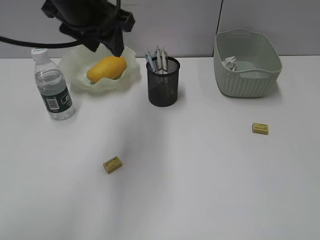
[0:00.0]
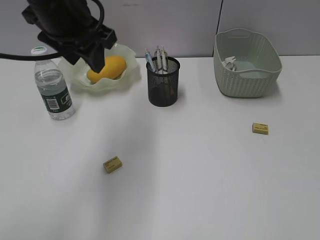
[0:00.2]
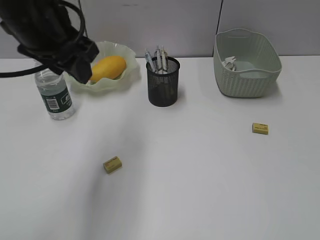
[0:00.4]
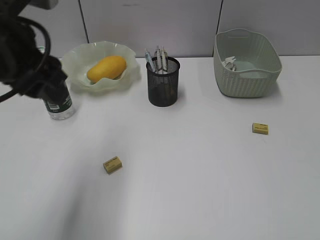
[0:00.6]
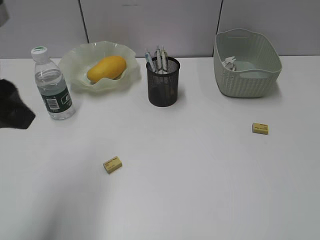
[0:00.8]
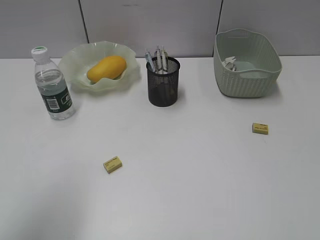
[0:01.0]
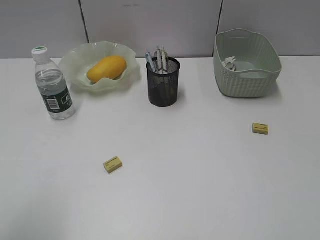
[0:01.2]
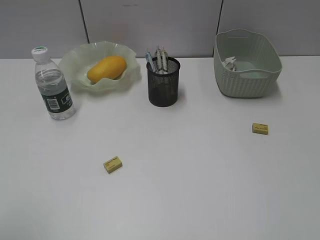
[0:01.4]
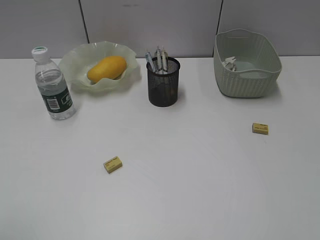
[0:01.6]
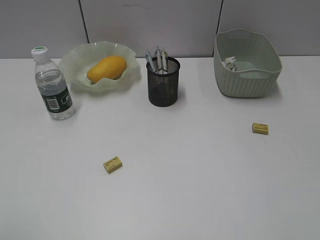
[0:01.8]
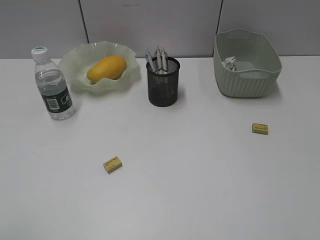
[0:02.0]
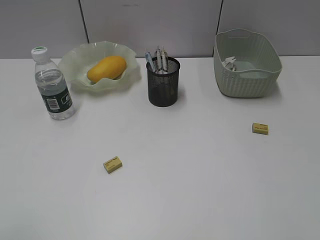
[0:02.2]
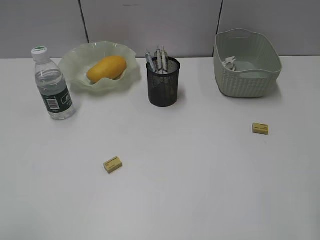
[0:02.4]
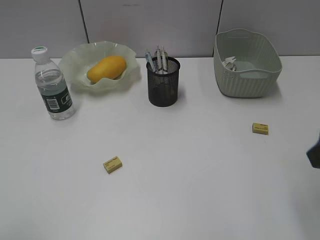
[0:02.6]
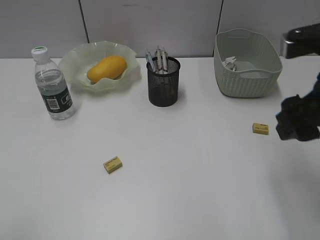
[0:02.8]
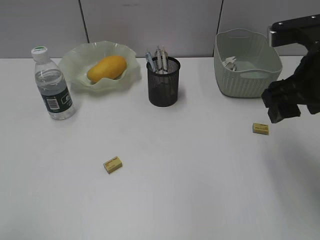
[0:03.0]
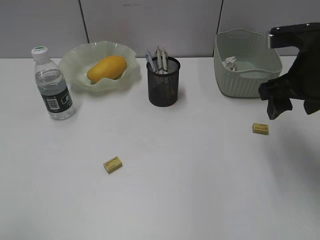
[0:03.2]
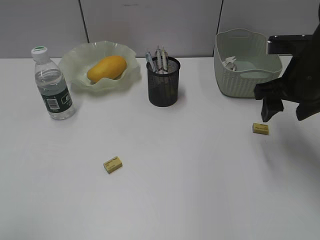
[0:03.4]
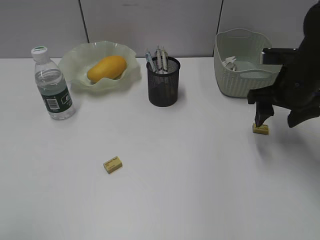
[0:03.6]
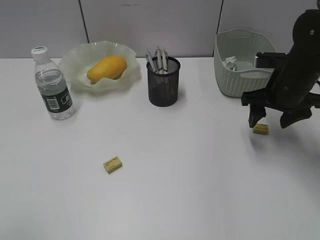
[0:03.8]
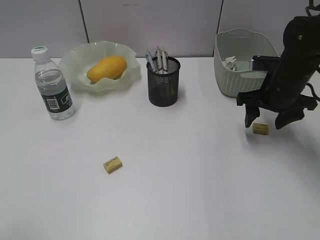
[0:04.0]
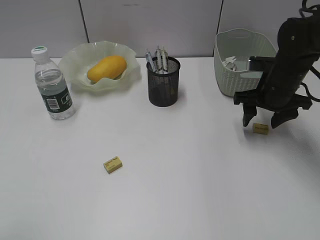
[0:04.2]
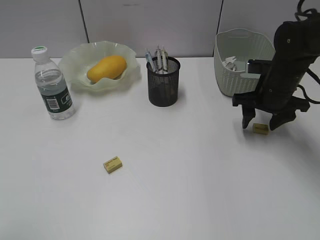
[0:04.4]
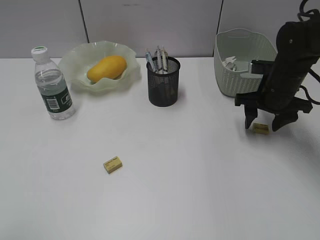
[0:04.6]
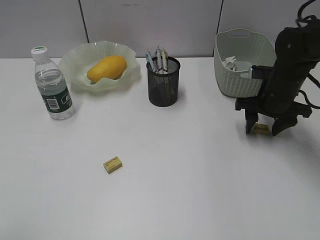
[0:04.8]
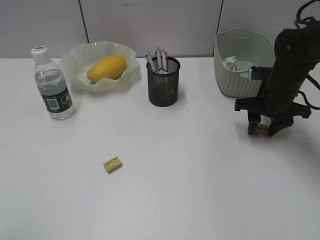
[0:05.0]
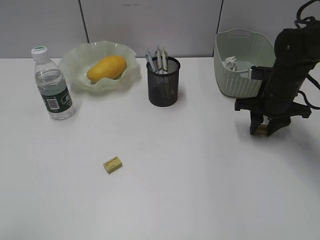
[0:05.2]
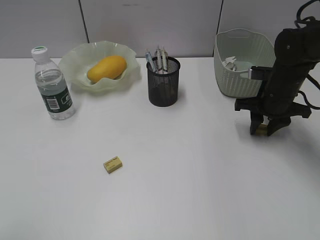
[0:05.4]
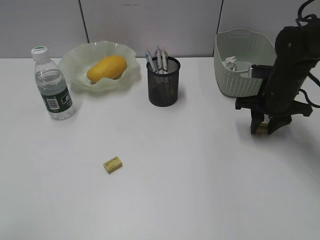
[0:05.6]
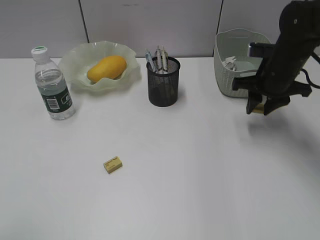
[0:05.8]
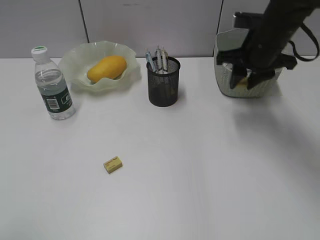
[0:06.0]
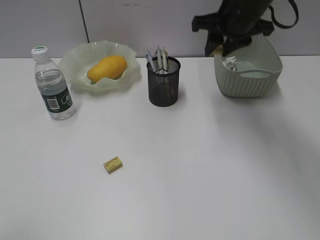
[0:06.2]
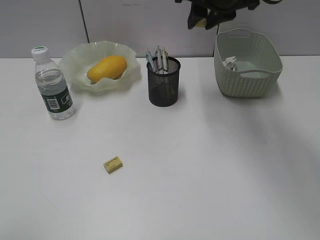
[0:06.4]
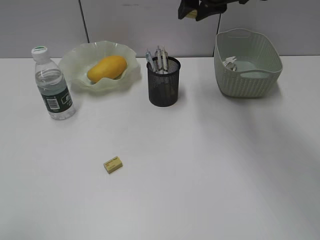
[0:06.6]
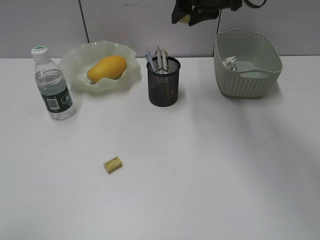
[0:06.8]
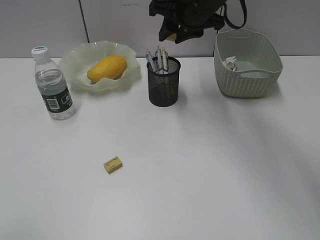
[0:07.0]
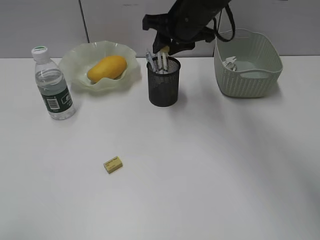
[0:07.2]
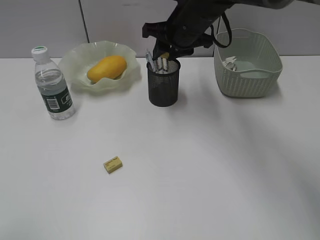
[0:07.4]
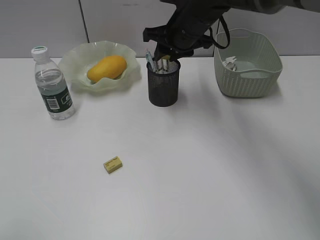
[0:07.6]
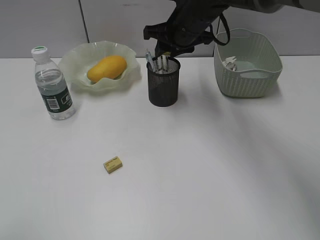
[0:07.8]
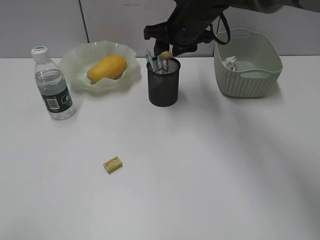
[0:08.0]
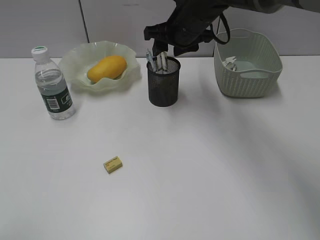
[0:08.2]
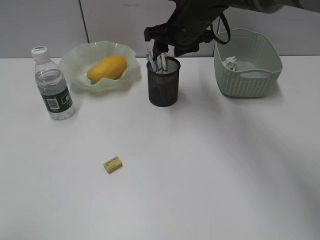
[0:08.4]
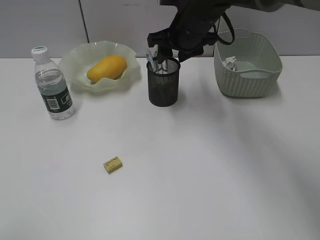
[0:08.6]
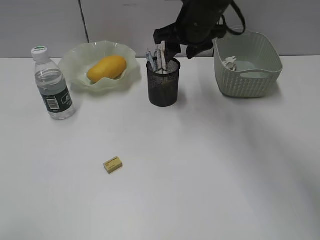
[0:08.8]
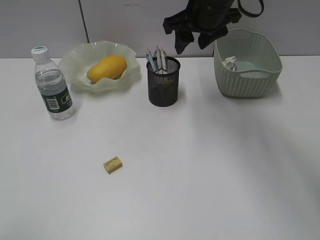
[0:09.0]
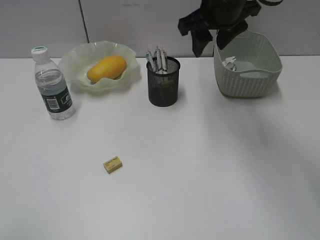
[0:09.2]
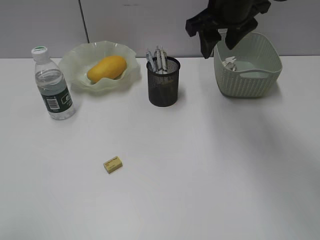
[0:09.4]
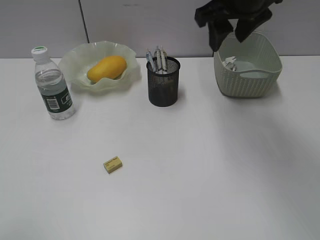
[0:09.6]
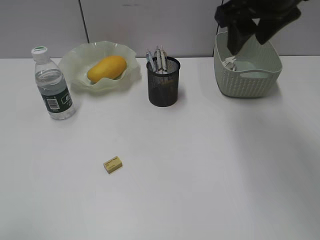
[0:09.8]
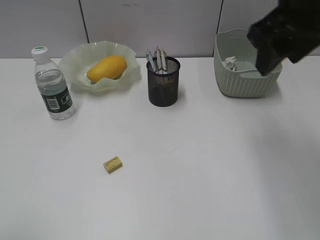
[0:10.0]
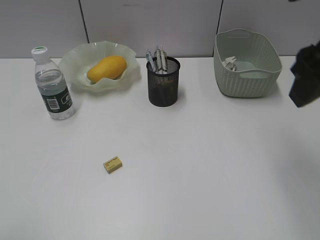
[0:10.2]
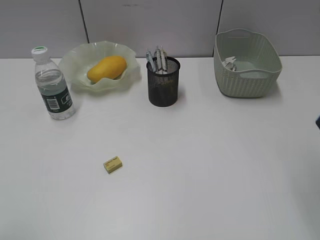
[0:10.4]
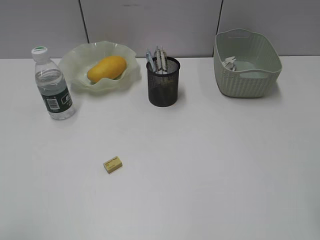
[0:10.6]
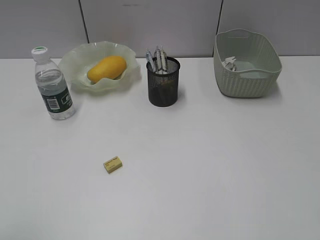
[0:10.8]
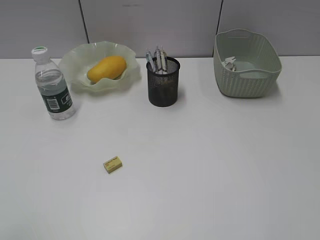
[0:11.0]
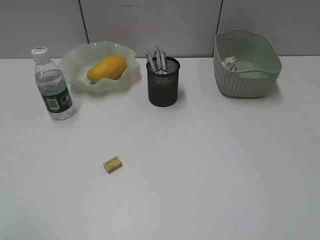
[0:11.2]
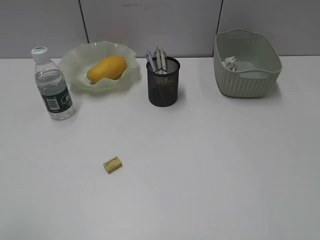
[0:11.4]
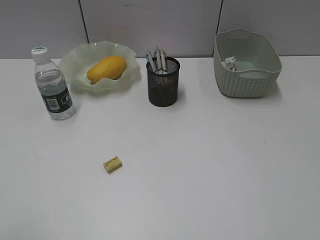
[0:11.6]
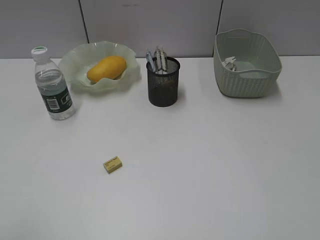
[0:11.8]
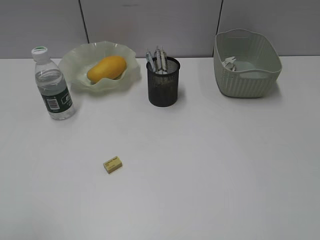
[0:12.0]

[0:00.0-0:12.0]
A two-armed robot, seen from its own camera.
Step, 0:00.0 to 0:05.4: Grasp the eraser with right gripper.
Step, 0:05.6 to 0:08.6: Place the eraser in pen holder with right gripper.
0:00.0 to 0:01.6: The left gripper is displaced backward and to the left by approximately 35 cm.
0:01.6 to 0:03.0: The right gripper travels forward and to the left by roughly 25 cm.
0:03.0 to 0:04.4: The right gripper travels forward and downward by approximately 20 cm.
0:04.4 to 0:06.0: The right gripper goes approximately 10 cm upward, and closes up.
0:06.0 to 0:07.6: The right gripper travels to the left by approximately 15 cm.
0:07.6 to 0:09.0: The right gripper is displaced upward by some 5 cm, and opens up.
0:09.0 to 0:10.4: The right gripper travels backward and to the right by approximately 30 cm.

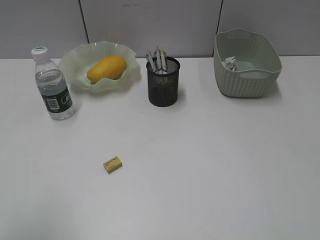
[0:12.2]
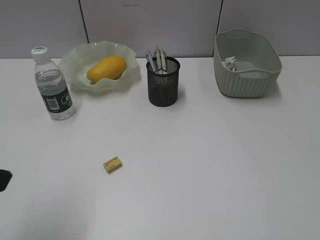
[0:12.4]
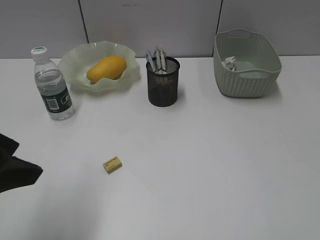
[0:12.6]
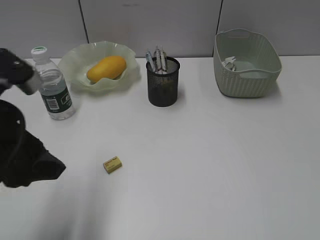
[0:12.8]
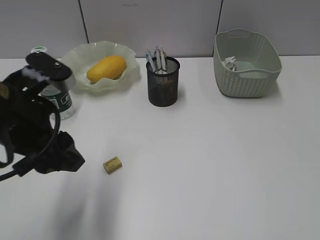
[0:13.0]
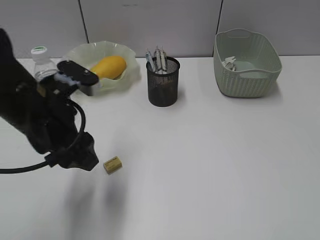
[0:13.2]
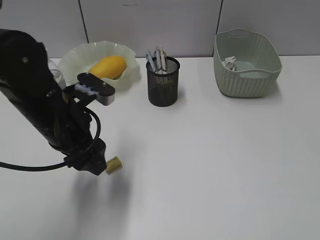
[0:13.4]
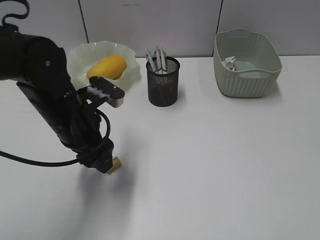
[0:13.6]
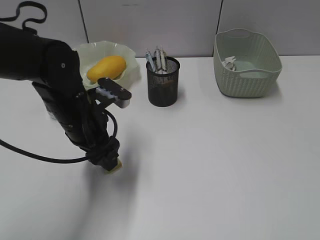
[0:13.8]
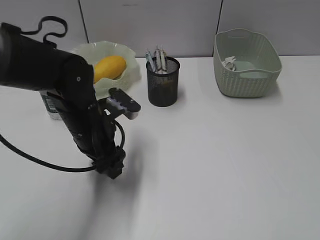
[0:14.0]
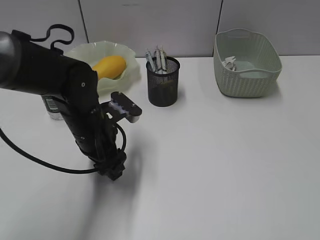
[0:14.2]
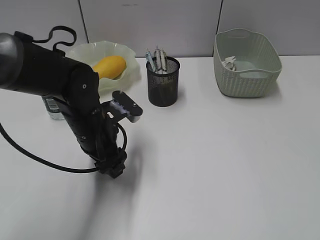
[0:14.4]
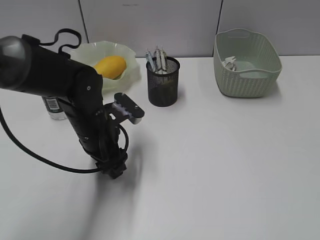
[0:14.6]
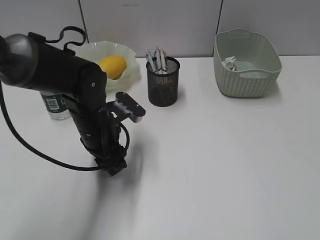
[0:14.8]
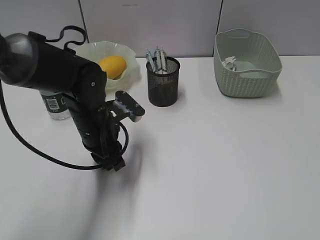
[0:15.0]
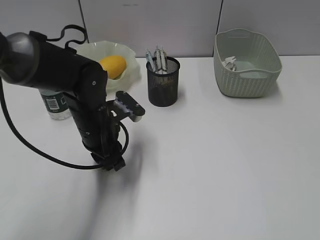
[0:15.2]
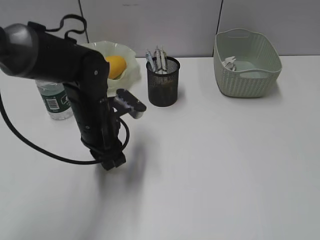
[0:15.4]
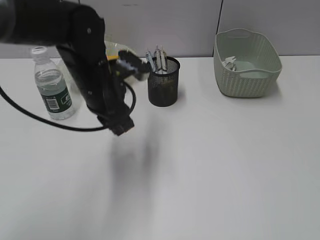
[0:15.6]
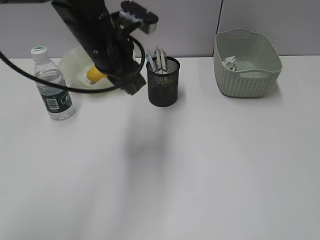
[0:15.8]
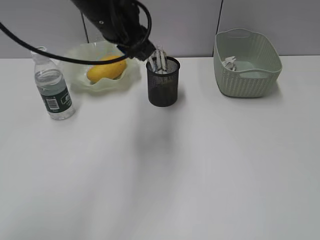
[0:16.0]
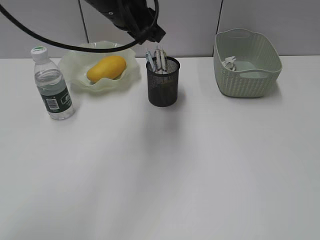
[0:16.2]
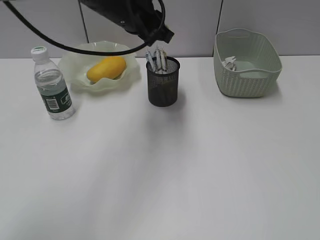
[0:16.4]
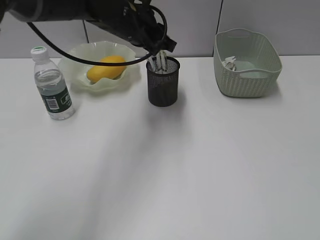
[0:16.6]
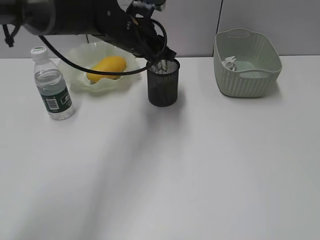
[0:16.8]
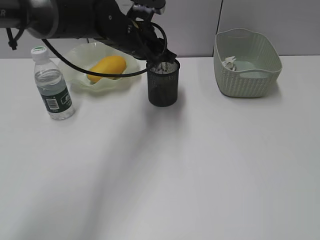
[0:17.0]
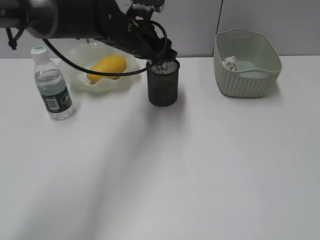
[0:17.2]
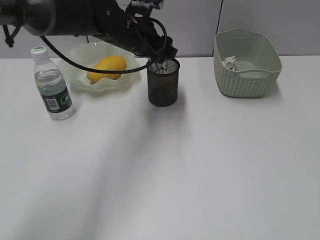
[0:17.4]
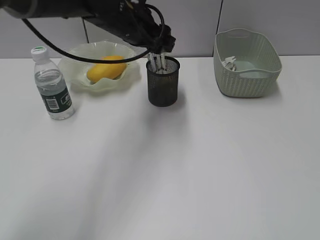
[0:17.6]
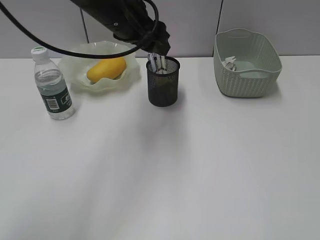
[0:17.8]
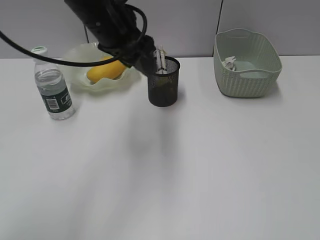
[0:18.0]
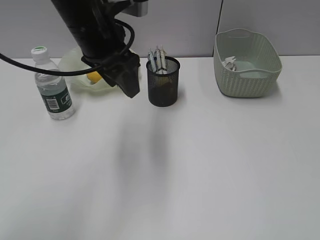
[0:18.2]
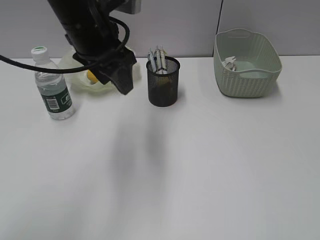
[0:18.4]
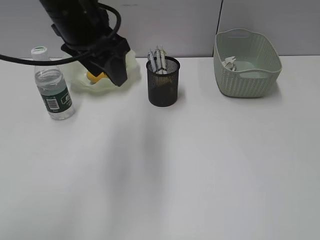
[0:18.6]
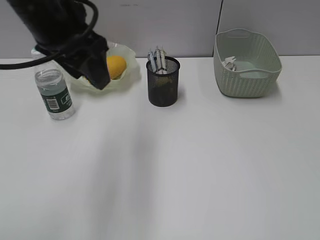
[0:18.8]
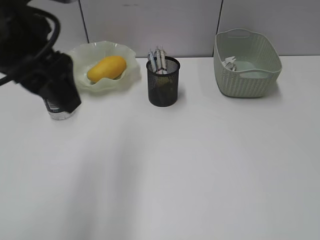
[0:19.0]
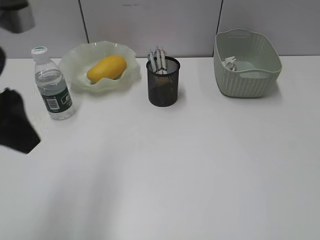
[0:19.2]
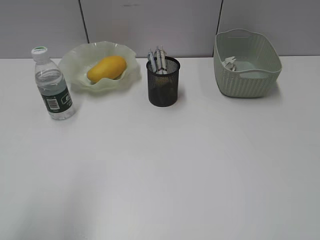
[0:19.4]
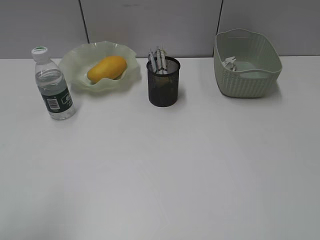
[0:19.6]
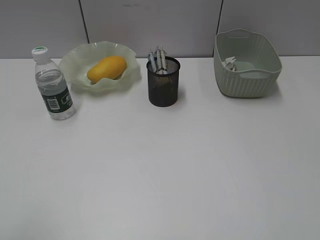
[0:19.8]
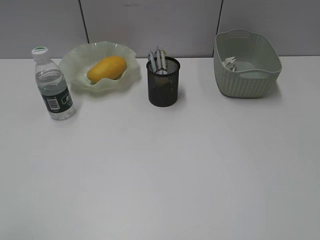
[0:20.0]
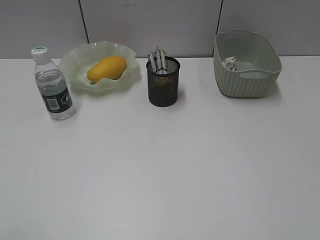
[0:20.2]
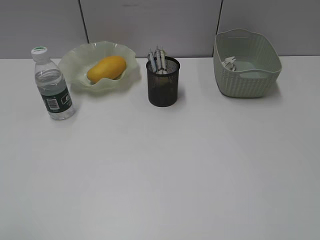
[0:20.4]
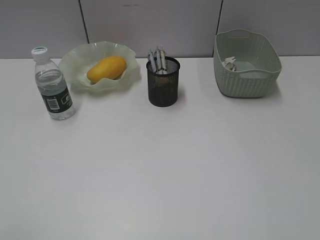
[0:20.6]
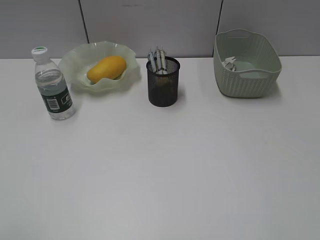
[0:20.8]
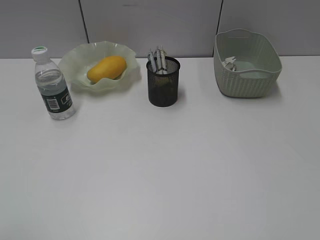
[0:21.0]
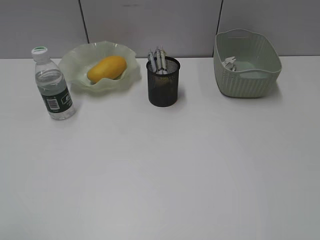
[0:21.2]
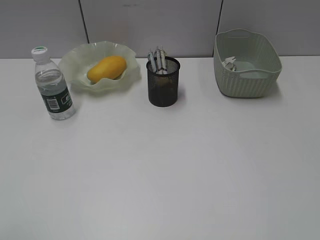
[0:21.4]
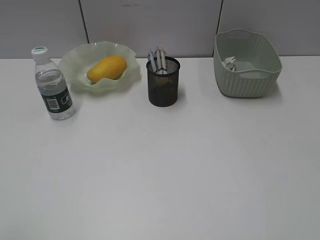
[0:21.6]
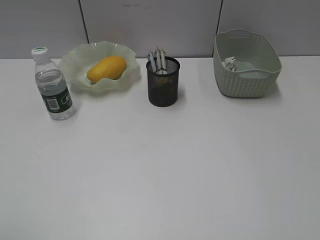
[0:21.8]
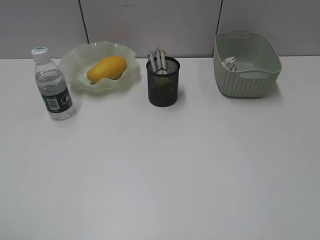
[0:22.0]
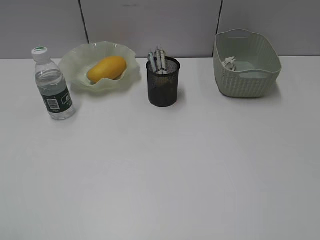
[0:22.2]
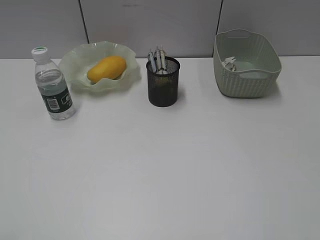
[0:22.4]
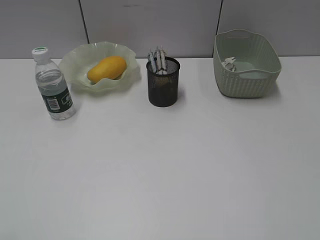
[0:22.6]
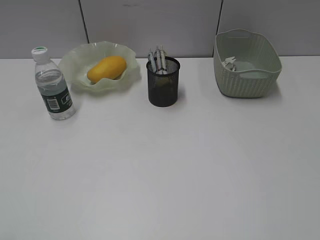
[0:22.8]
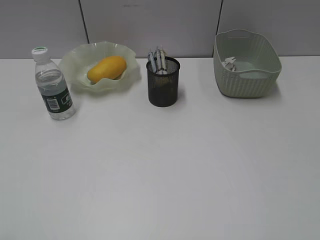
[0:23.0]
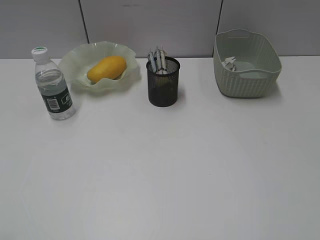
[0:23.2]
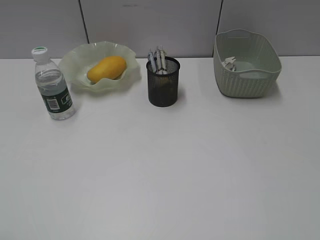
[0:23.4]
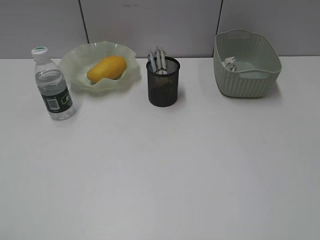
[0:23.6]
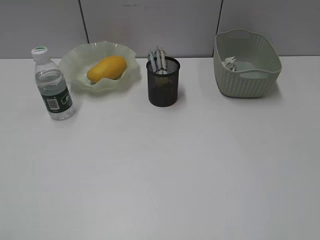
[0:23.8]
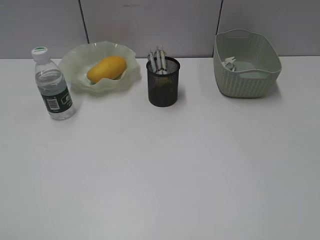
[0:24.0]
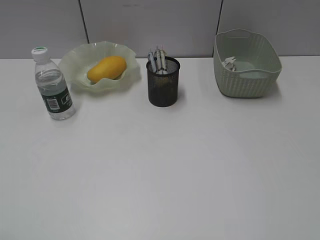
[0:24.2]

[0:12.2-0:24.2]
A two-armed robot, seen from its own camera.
Step, 0:12.2 to 0:15.0: Grasp the eraser with left gripper.
Step, 0:15.2 to 0:17.2: Place the eraser in pen holder with left gripper.
0:12.2 to 0:13.8: The left gripper travels forward, to the right and downward by roughly 30 cm.
0:13.8 to 0:15.2: The left gripper closes.
0:15.2 to 0:16.6: The left gripper moves upward, forward and to the right, approximately 20 cm.
0:16.6 to 0:18.2: The left gripper shifts roughly 5 cm backward, and opens up.
0:18.2 to 0:19.8: The left gripper is displaced backward and to the left by some 35 cm.
0:22.6 to 0:24.2: The two grippers keep their place.
